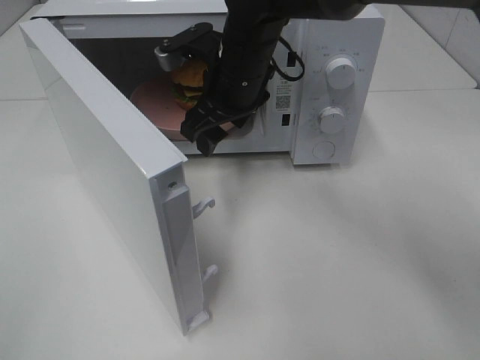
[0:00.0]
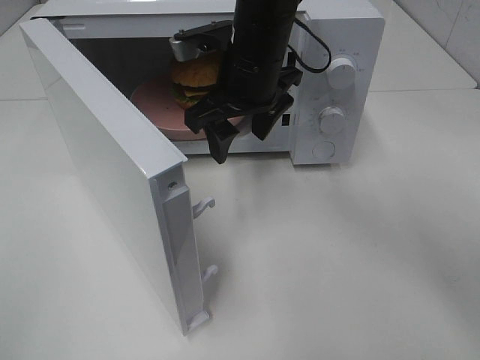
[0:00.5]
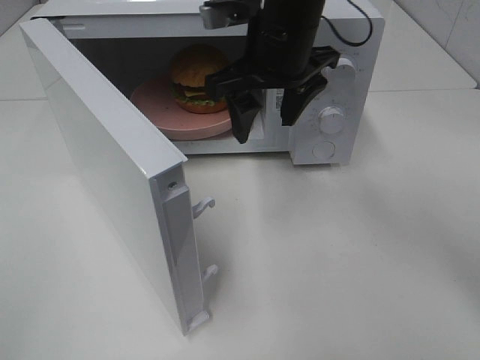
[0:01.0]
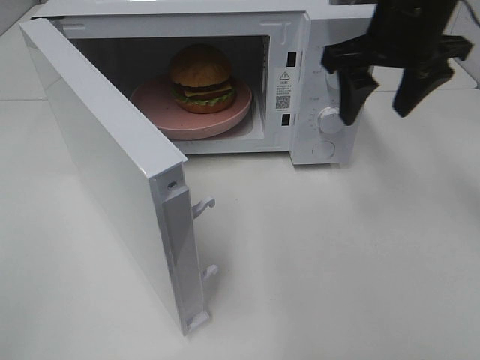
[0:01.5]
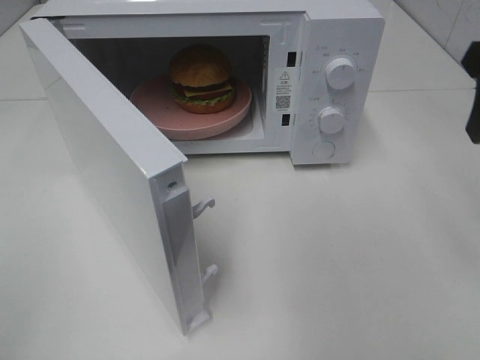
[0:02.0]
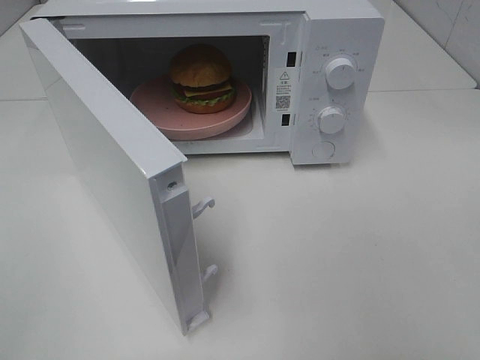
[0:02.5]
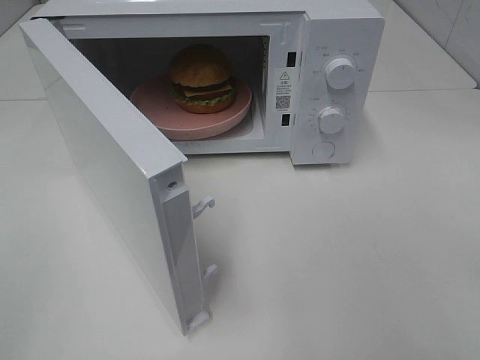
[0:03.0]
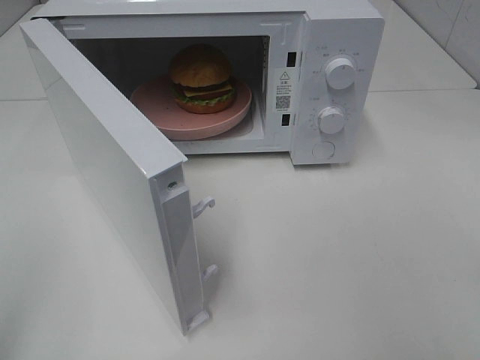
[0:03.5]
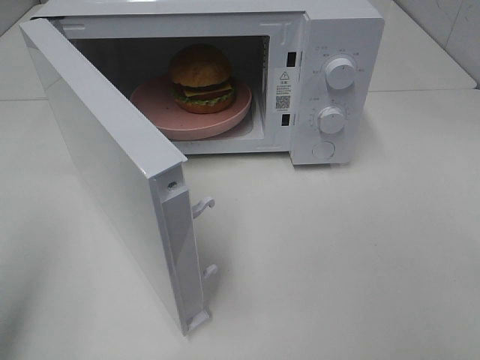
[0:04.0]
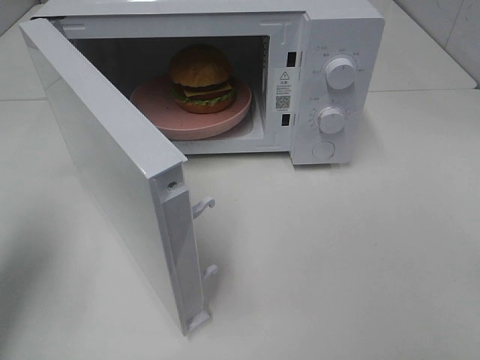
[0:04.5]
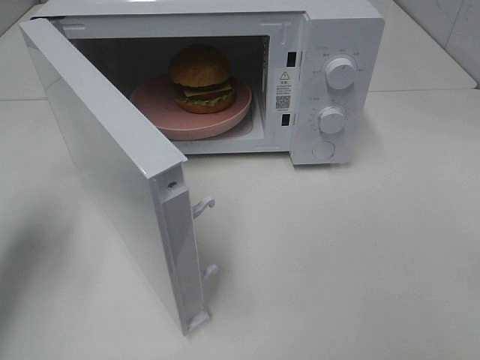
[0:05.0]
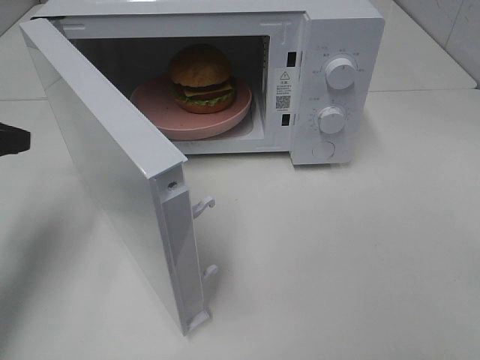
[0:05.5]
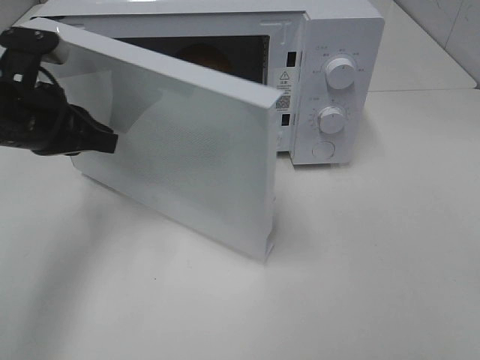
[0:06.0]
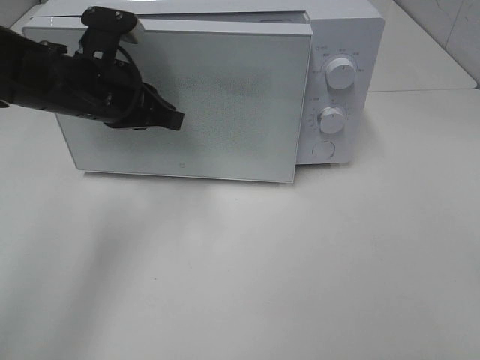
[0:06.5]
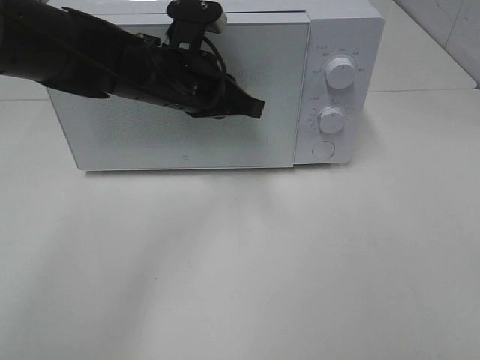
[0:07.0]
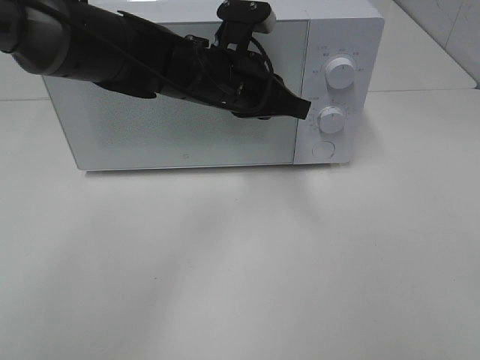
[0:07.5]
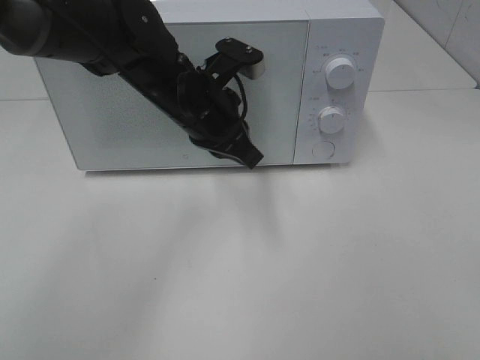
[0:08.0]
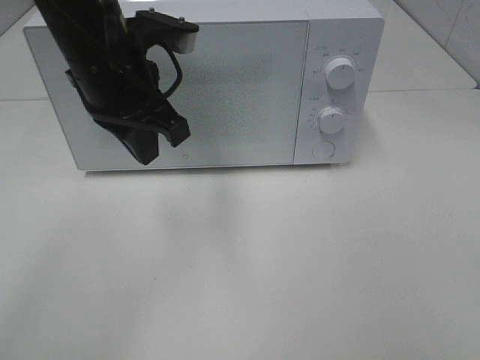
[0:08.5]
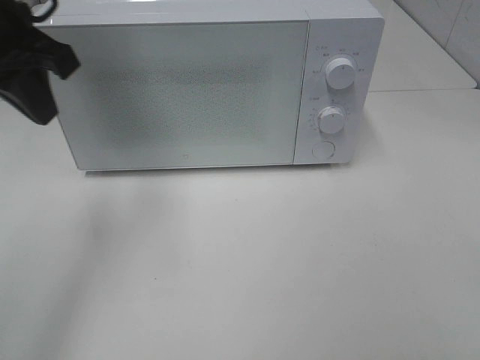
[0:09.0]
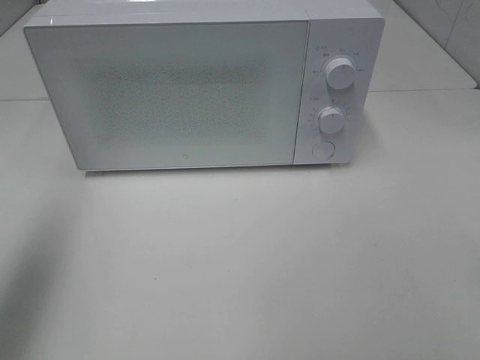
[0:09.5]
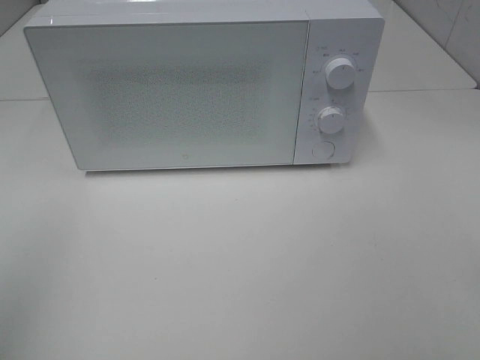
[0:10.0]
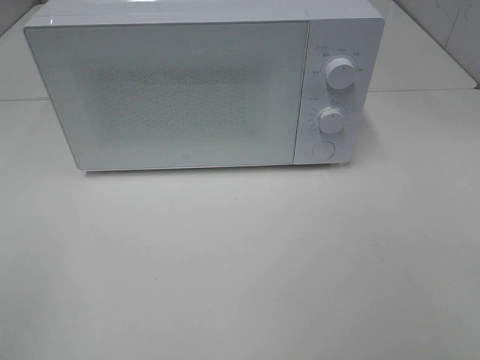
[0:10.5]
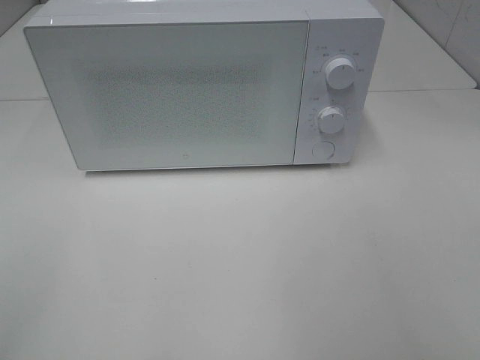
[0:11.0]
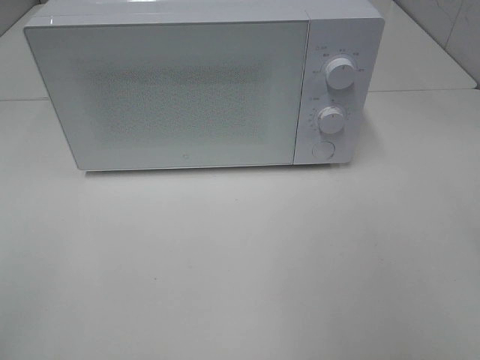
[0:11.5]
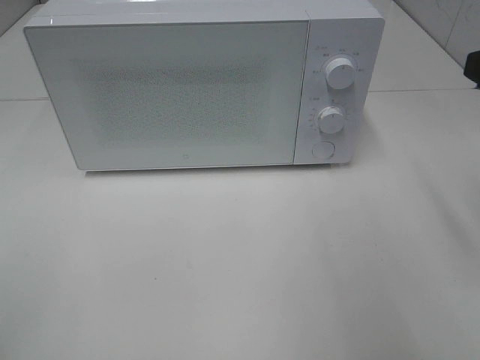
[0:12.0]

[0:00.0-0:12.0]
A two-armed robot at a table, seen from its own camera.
Task of the whole recording: Heat the burger.
Step, 0.0 to 7.0 s: Left hand: close the microwave door.
0.0 to 2.0 s: The right gripper is displaced to the right, backward and upward by about 30 cm.
2.0 to 4.0 s: The left gripper shifts some 10 cm forward. Meanwhile the right gripper heads backward, covering some 25 cm.
4.0 to 6.0 s: The left gripper goes approximately 25 cm forward, downward and to the right.
6.0 to 8.0 s: The left gripper travels to the right by roughly 15 cm.
8.0 to 10.0 s: The left gripper goes roughly 40 cm backward, to the left and upward.

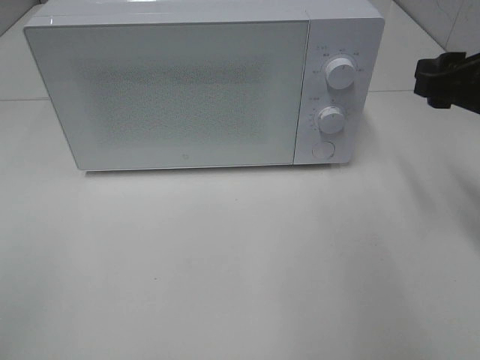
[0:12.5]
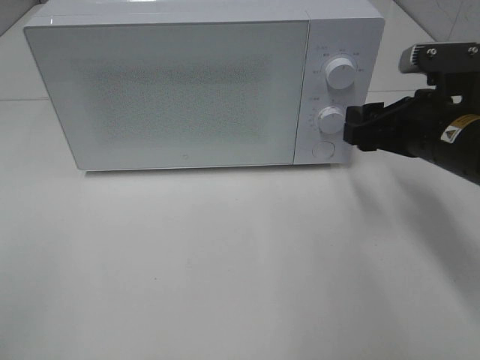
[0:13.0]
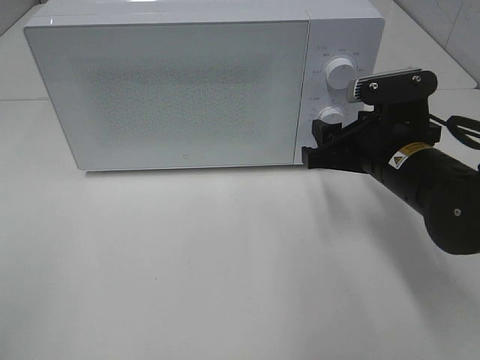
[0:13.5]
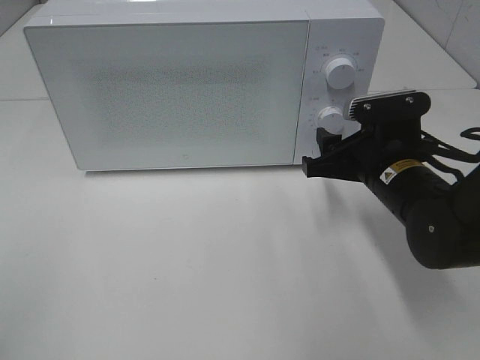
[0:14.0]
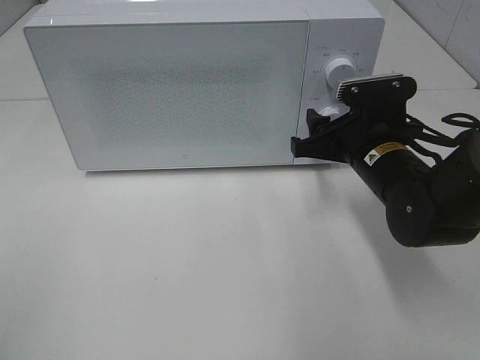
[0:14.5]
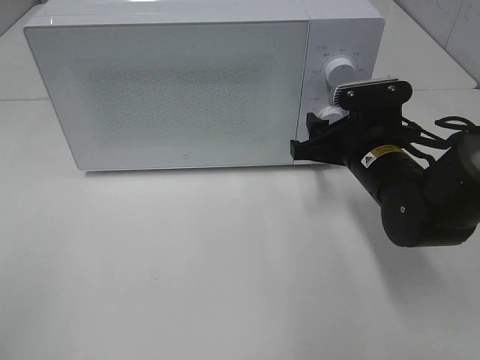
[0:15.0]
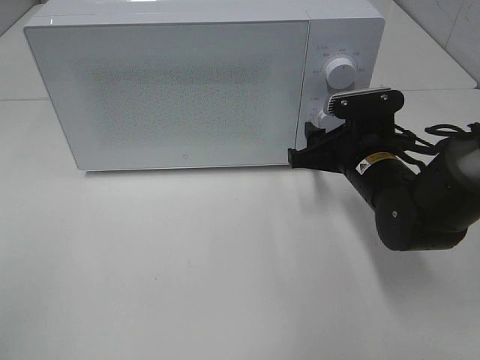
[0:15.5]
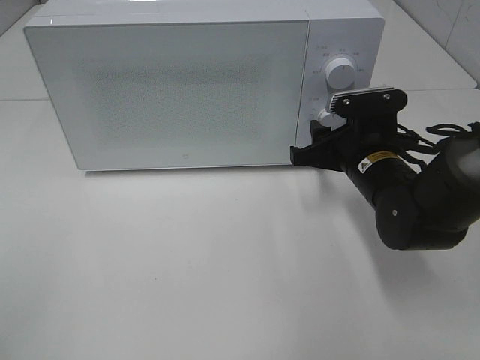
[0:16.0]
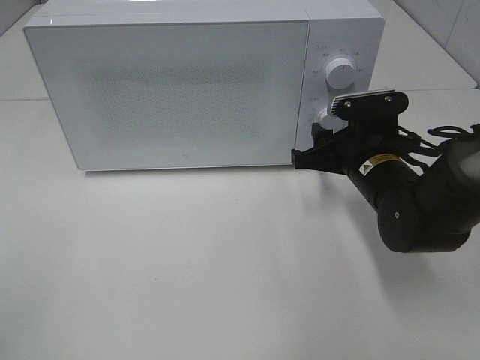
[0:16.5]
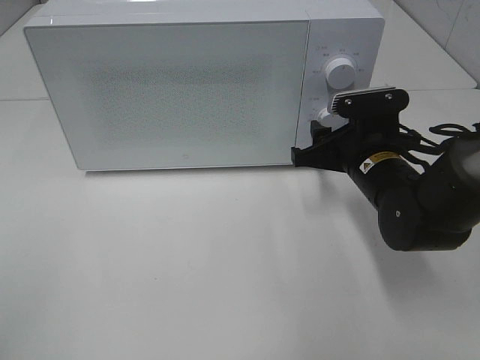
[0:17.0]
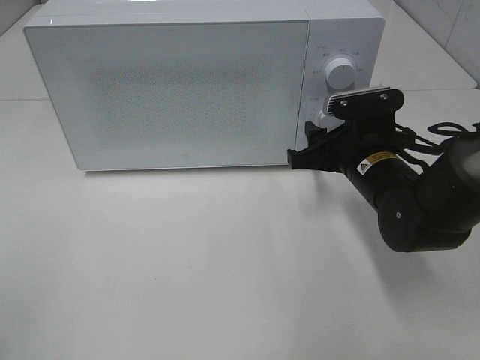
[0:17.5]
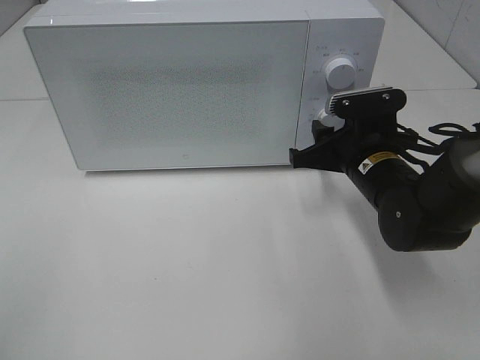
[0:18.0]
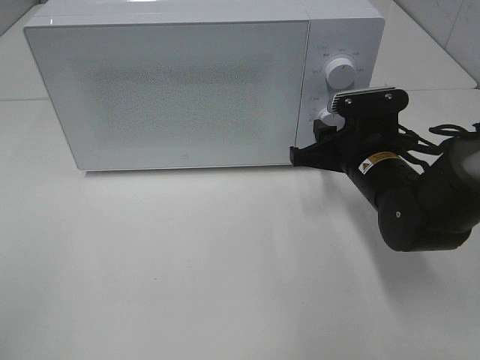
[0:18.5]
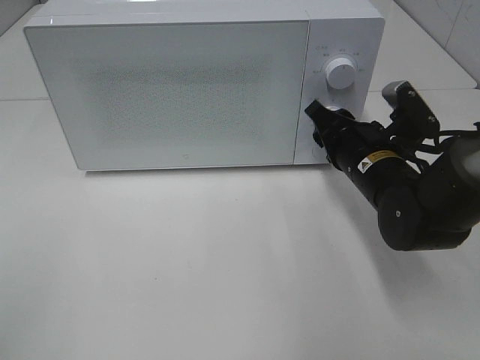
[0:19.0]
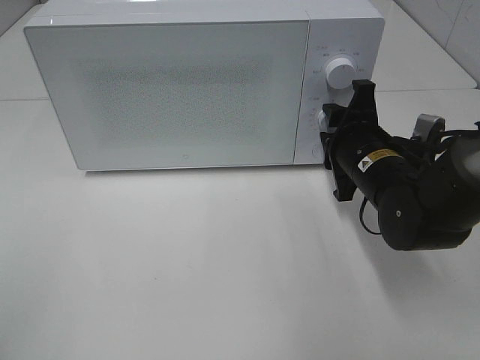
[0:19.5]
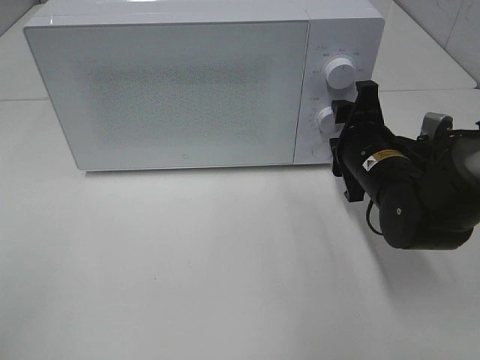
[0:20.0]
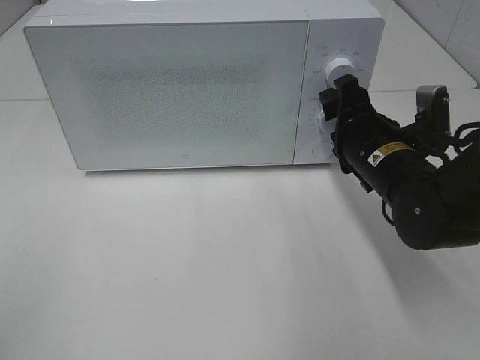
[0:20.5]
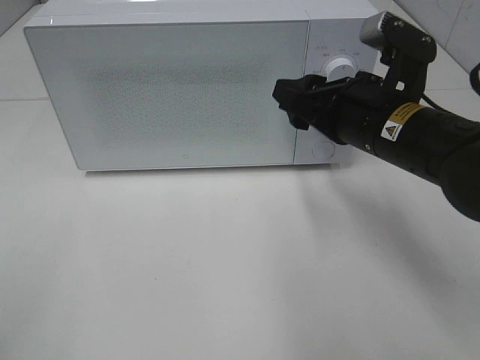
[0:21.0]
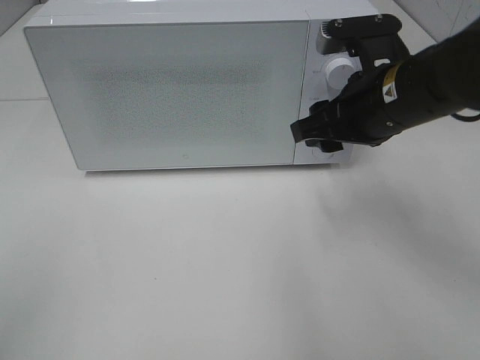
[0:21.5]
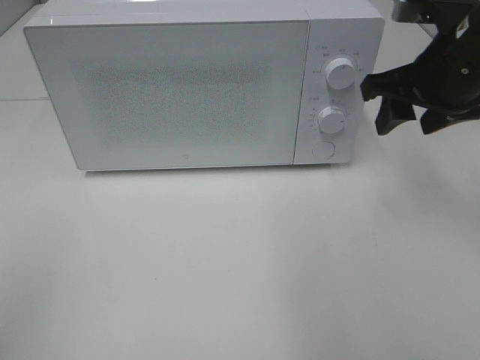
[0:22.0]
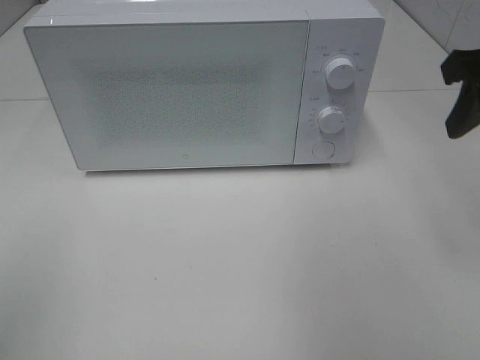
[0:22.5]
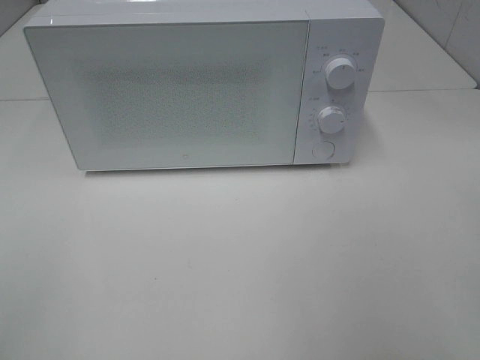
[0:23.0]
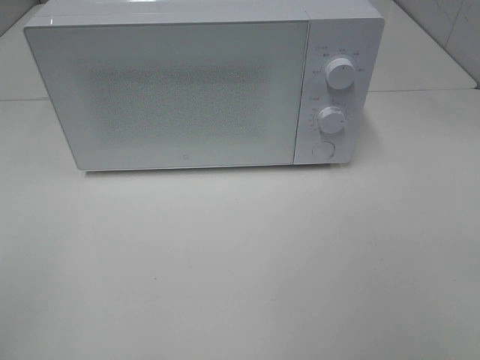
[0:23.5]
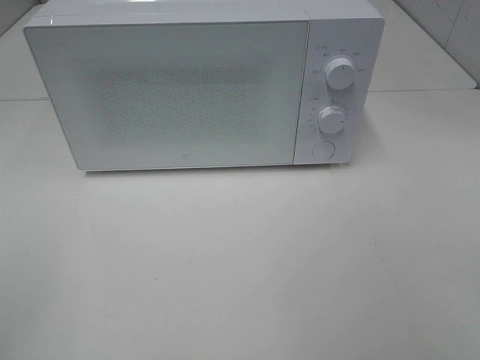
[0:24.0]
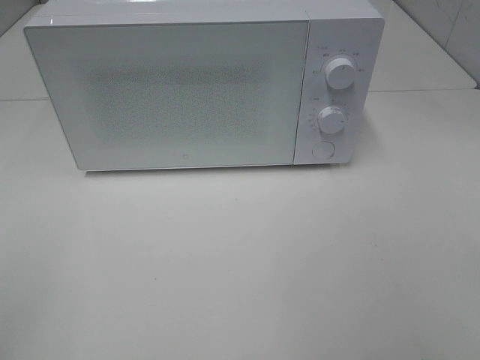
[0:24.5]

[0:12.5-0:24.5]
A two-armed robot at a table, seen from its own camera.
Task of the whole recording: Heat the burger.
Step, 12.5 to 20.0 s: Right hand: twist timer button.
12.5 to 14.5 s: The right gripper travels downward and to the left by roughly 15 cm.
14.5 to 16.5 s: The grippers make only small movements.
16.5 to 18.5 s: Both grippers stay about where they are.
20.5 to 22.5 s: The right gripper goes some 20 cm upward and to the right.
22.5 to 24.5 s: The right gripper travels backward by about 25 cm.

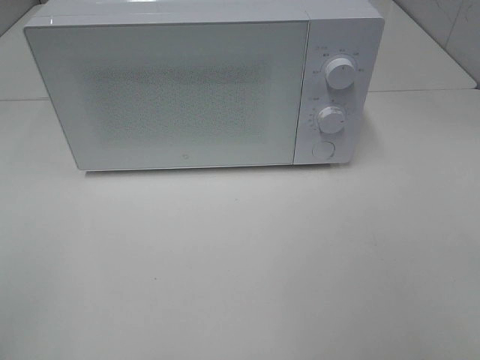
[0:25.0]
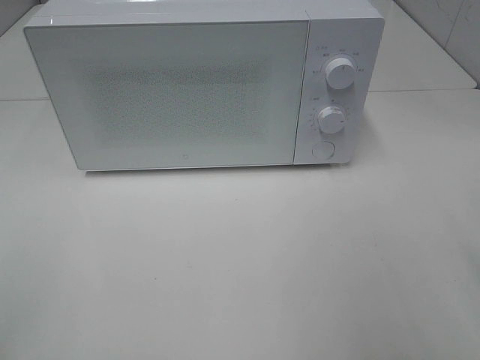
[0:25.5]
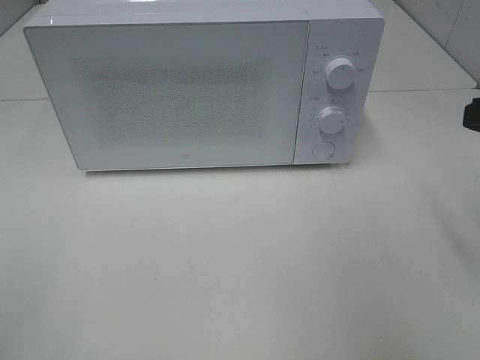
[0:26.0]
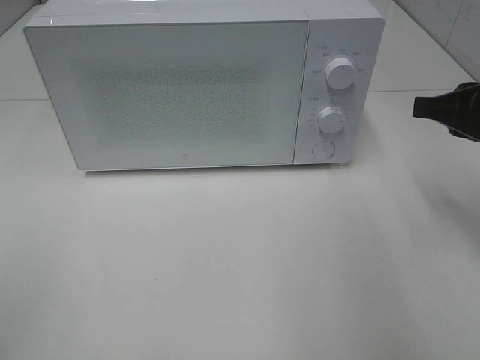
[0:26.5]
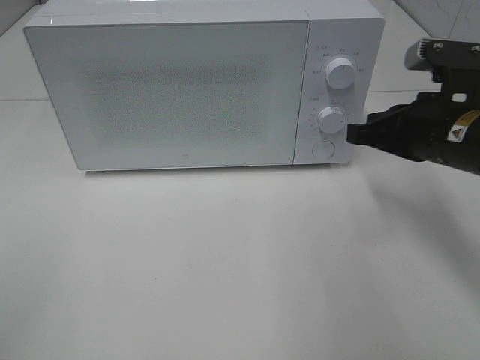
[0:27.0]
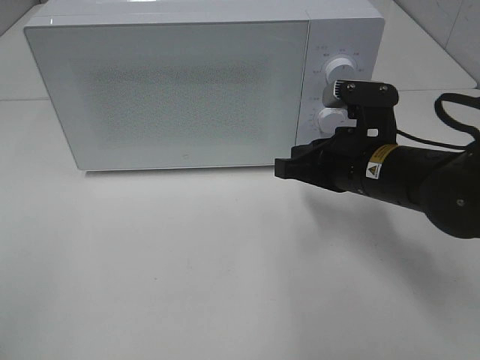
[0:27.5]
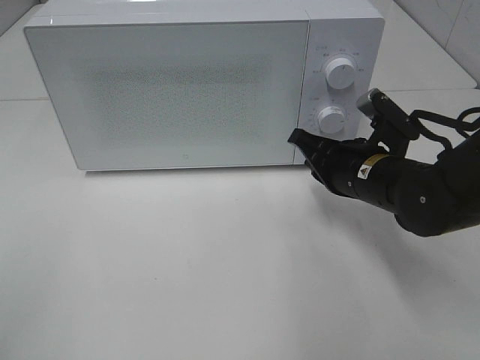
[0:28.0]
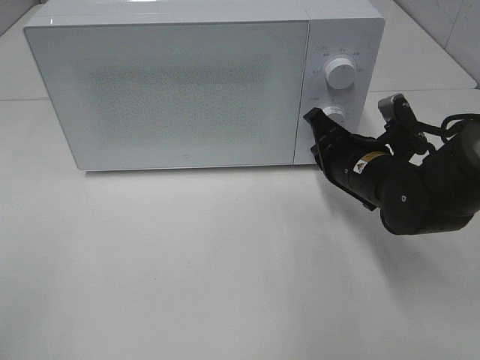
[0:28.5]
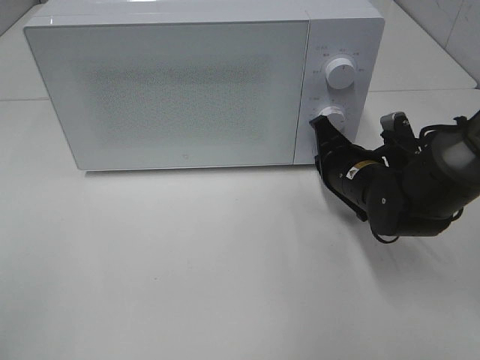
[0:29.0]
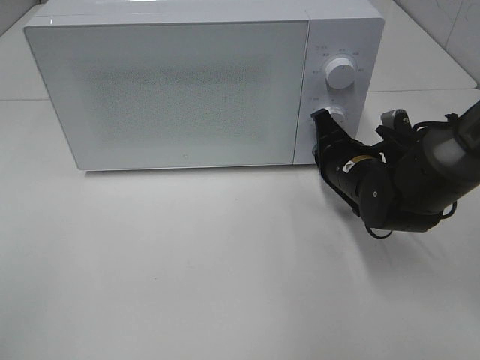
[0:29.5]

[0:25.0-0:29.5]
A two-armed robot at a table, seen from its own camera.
Task of the whole recording: Heat the burger.
25.0 to 27.0 s: The right gripper moves forward and downward, roughly 30 cm, and closes its fingers.
27.0 to 29.5 s: The right gripper is displaced downward, forward and to the left by approximately 15 cm.
